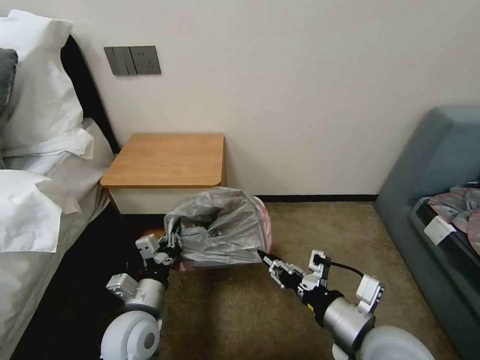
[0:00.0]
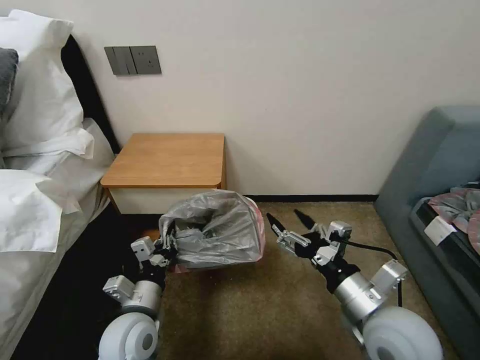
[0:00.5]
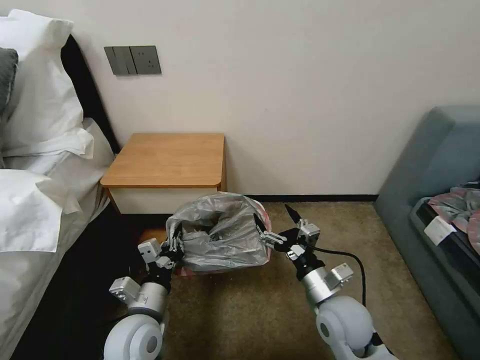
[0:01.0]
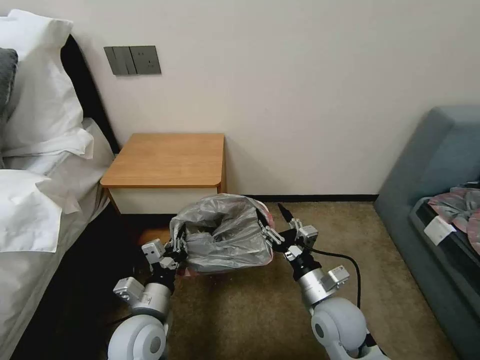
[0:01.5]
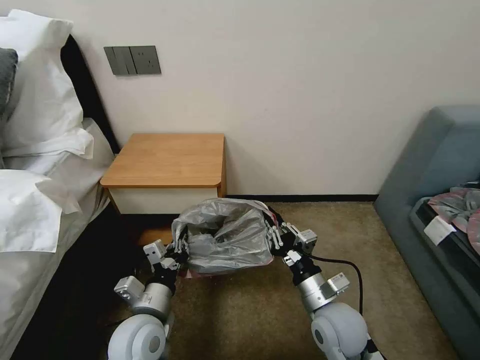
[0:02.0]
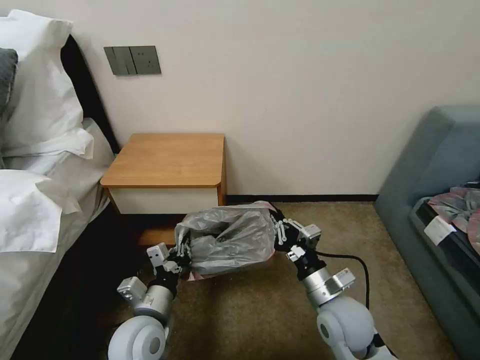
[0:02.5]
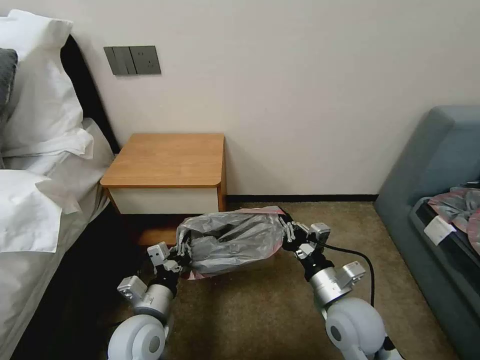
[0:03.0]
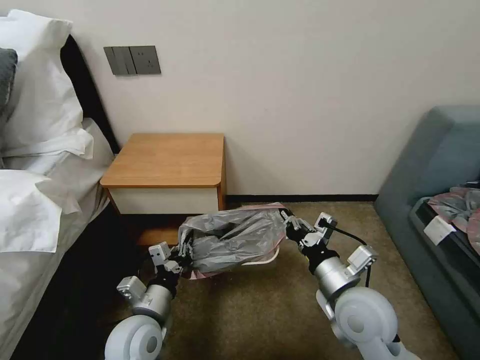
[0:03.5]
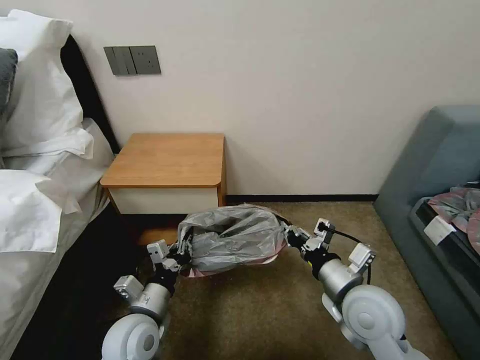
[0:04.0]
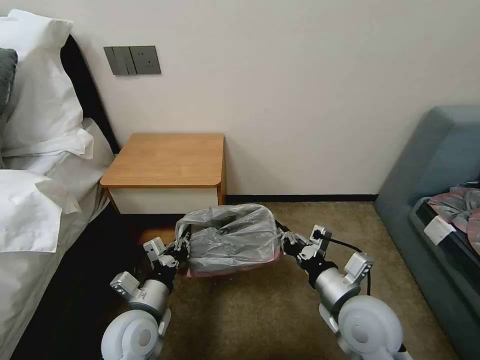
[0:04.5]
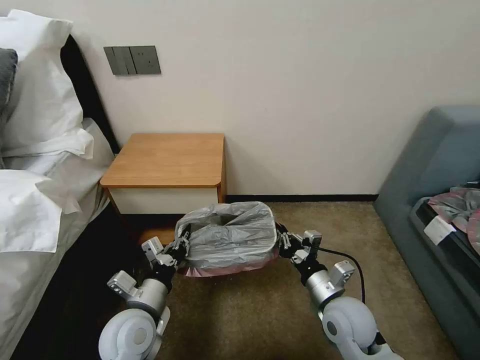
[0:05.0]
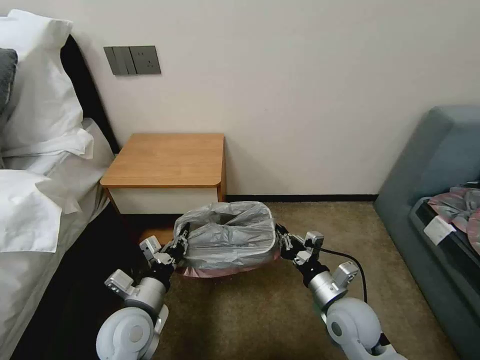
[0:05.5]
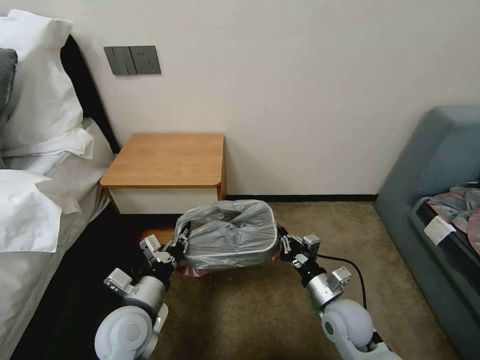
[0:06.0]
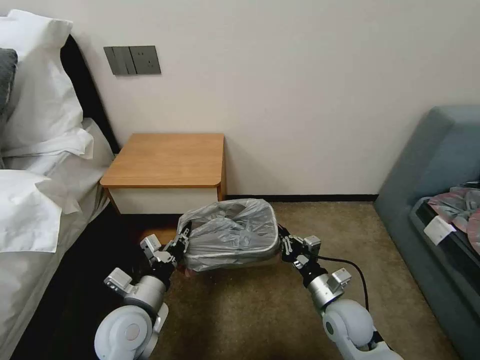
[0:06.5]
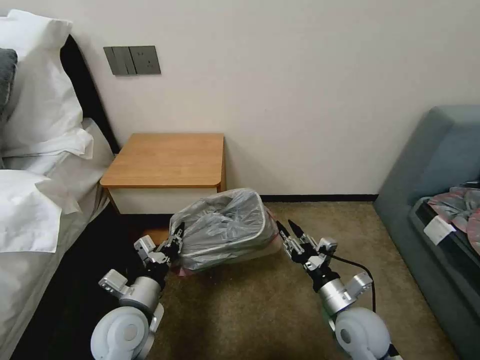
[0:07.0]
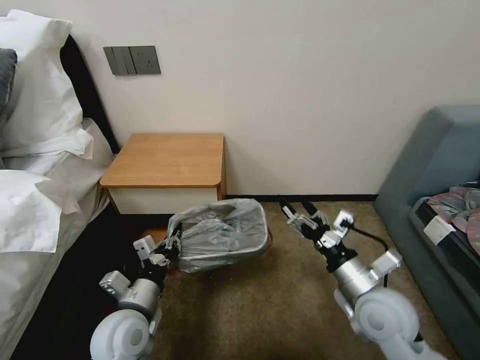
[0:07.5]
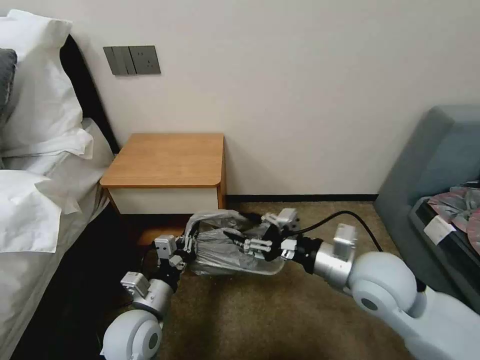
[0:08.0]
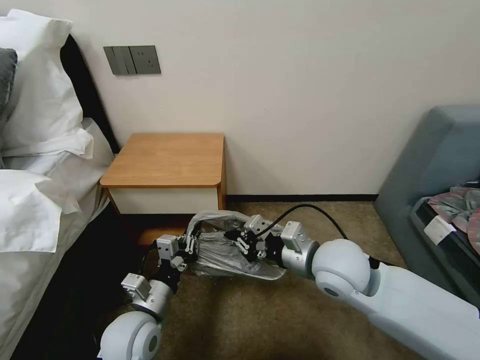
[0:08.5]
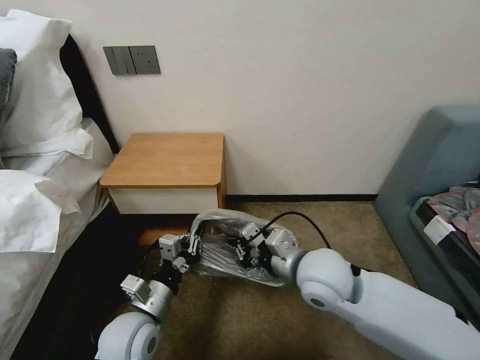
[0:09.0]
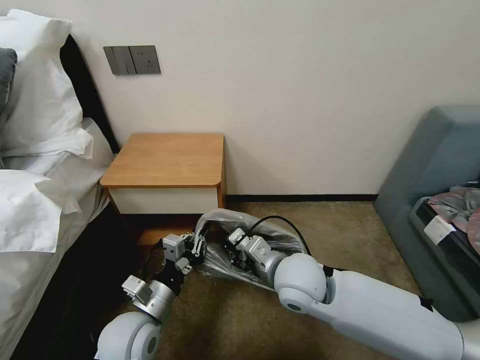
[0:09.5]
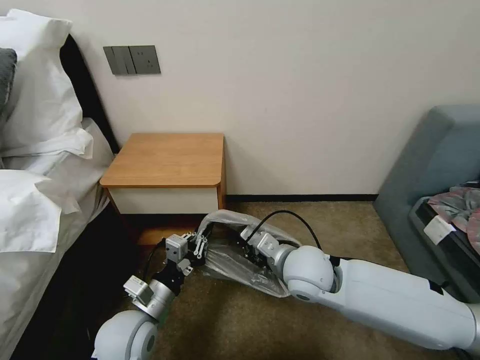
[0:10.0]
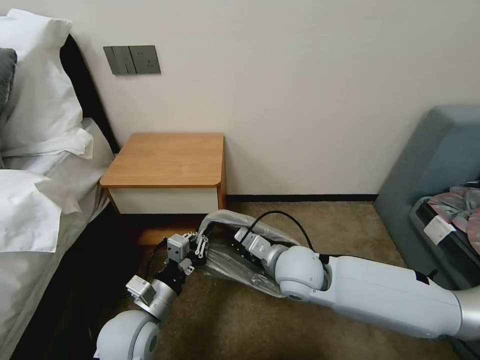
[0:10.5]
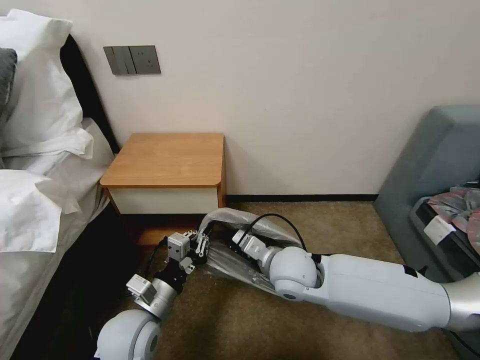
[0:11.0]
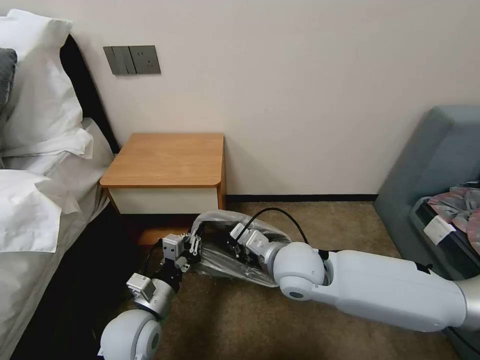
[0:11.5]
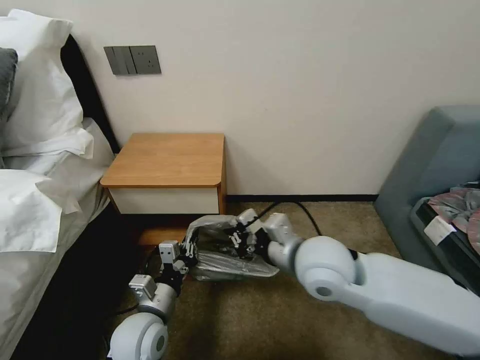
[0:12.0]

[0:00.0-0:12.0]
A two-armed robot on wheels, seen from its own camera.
Task of the whole recording: Pick up the garbage bag from the table and place it over the trash can.
0:00.0 to 0:02.0: The right gripper is displaced downward and forward by roughly 15 cm, and opens, then closes again.
0:02.0 to 0:04.0: The right gripper heads upward, covering about 5 cm.
0:04.0 to 0:06.0: The right gripper is displaced downward by about 10 cm.
0:06.0 to 0:08.0: The right gripper goes approximately 20 cm upward, and opens its fingers.
0:08.0 to 0:10.0: The right gripper heads to the left and downward, covering approximately 10 cm, and closes its fingers.
0:10.0 to 0:12.0: The right gripper goes some 5 cm upward.

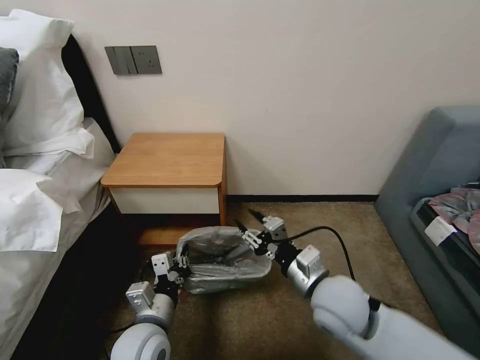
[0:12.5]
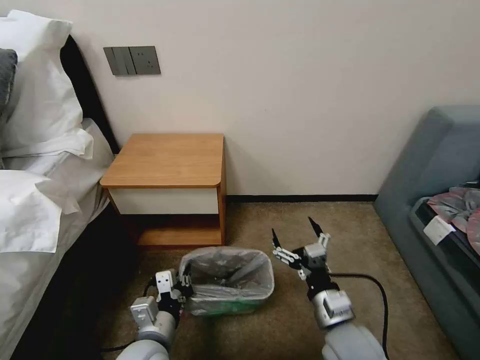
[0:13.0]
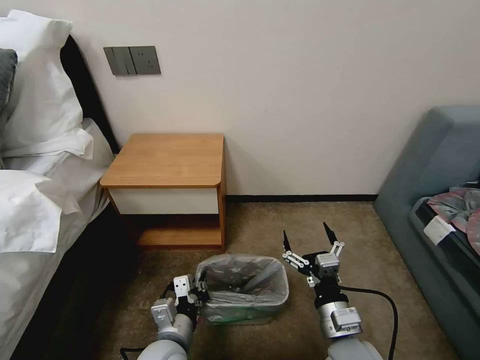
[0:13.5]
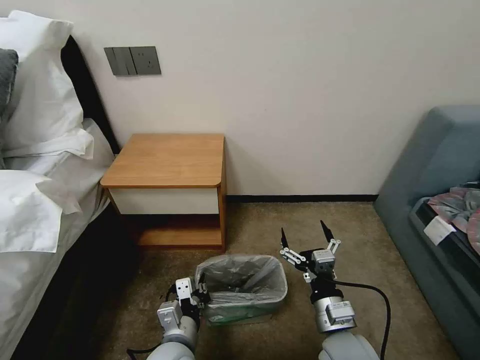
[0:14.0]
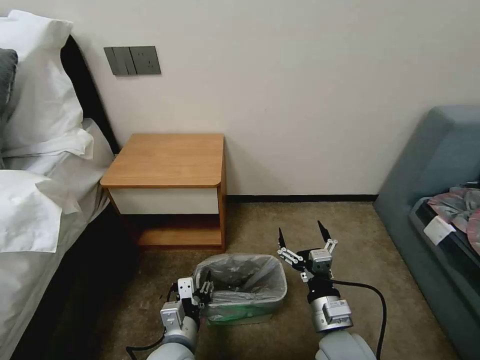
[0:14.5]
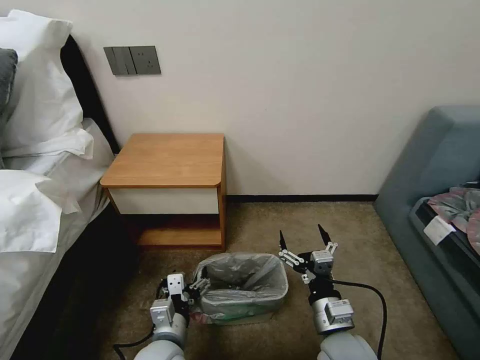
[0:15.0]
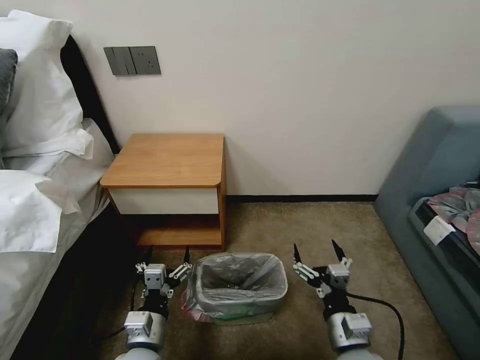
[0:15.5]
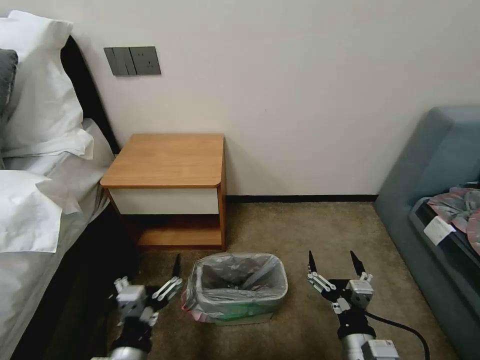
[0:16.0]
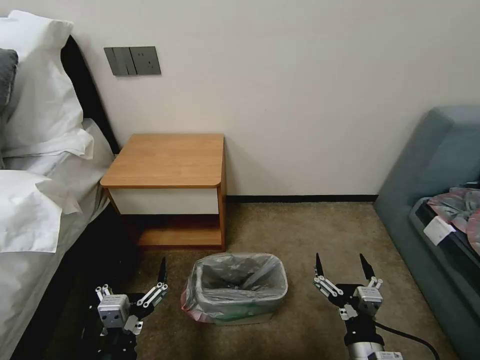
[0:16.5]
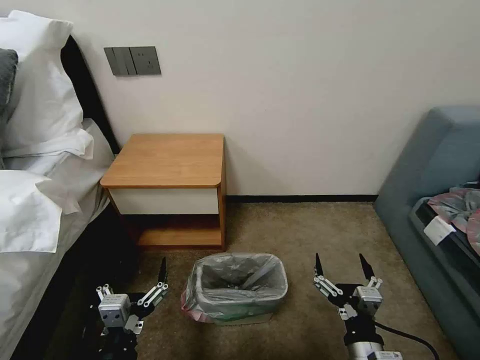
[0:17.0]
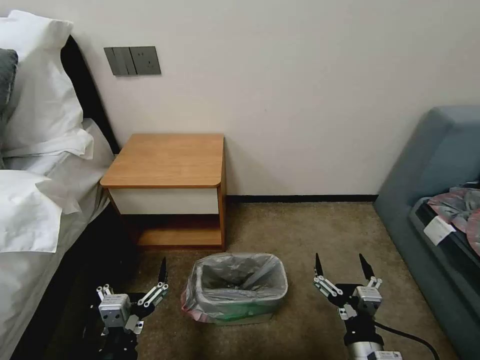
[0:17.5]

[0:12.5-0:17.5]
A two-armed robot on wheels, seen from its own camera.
Task of the whole recording: Pick up the garbage bag from the table and place it over the trash can.
0:12.5 to 0:15.0: The left gripper moves approximately 5 cm, and opens, while the right gripper heads downward and backward, covering approximately 10 cm, and opens its fingers.
0:15.0 to 0:17.5: The right gripper is displaced backward by approximately 10 cm, while the left gripper is displaced backward, upward and to the left by roughly 15 cm.

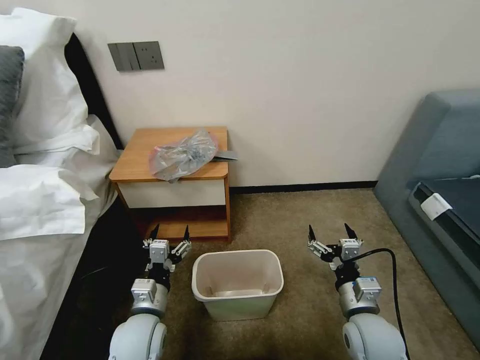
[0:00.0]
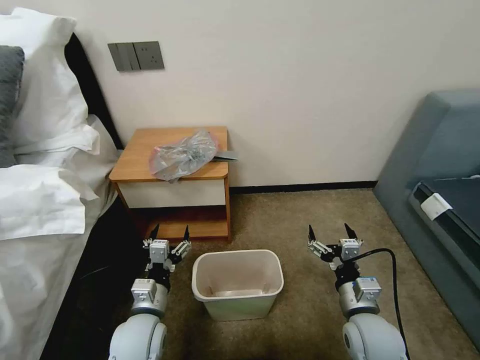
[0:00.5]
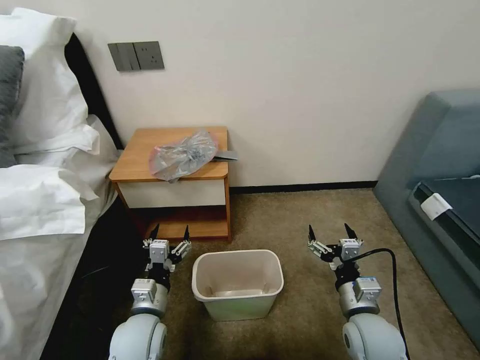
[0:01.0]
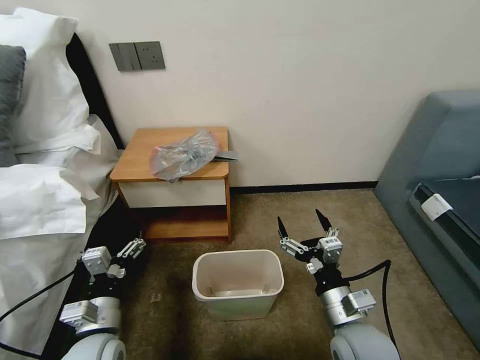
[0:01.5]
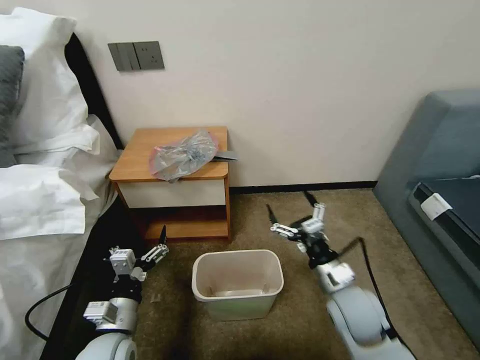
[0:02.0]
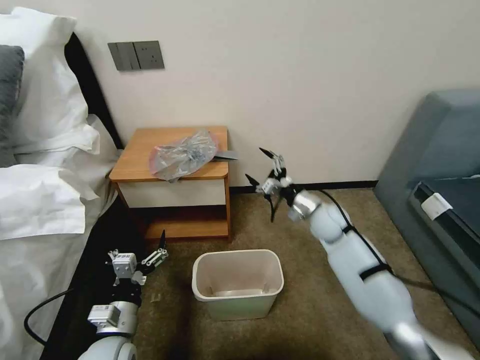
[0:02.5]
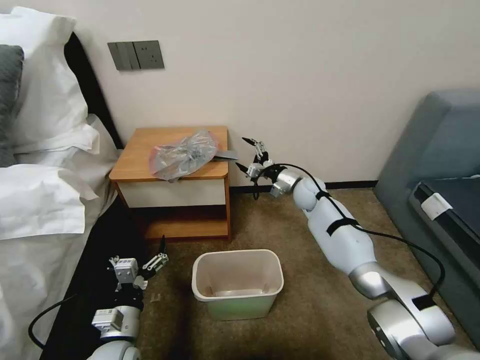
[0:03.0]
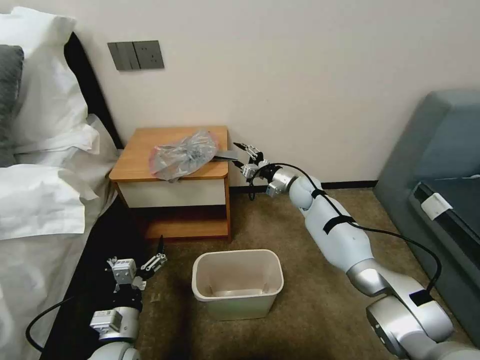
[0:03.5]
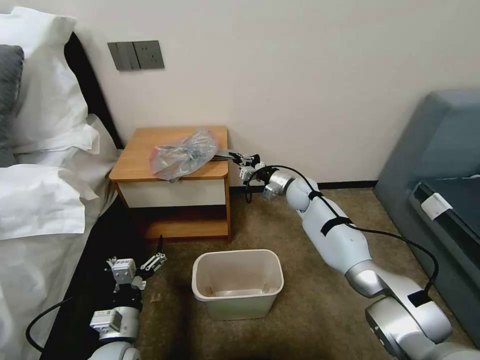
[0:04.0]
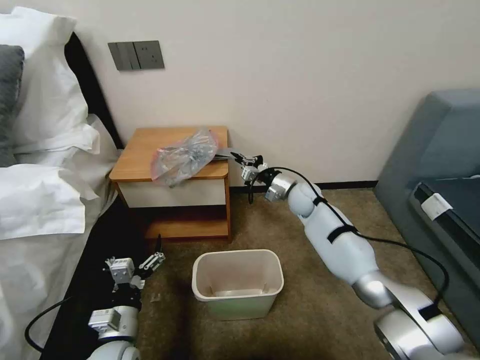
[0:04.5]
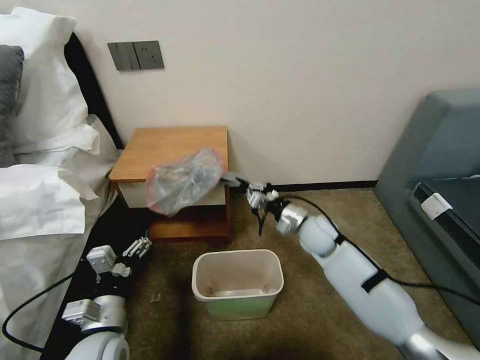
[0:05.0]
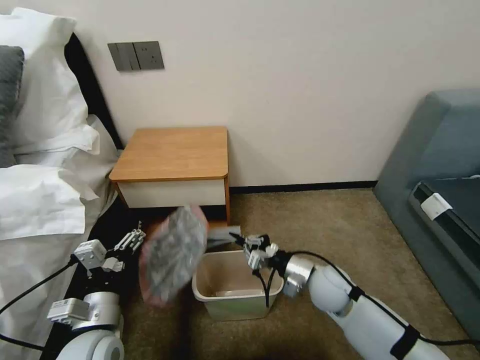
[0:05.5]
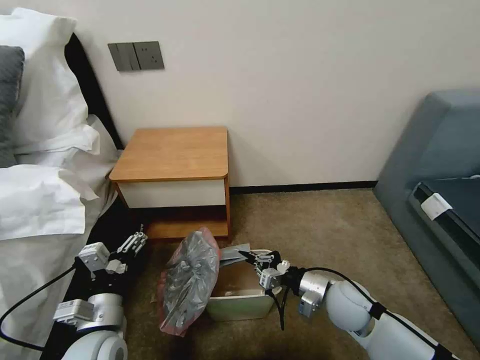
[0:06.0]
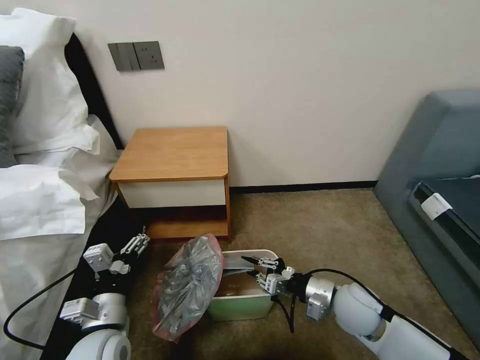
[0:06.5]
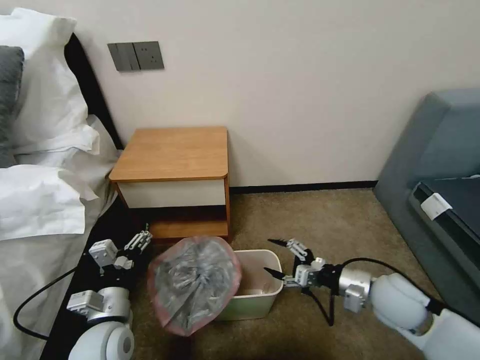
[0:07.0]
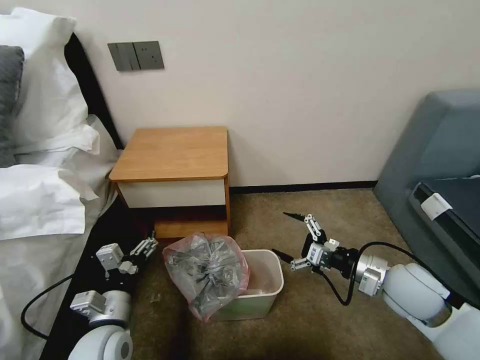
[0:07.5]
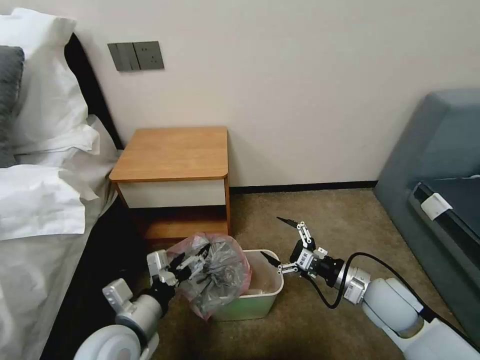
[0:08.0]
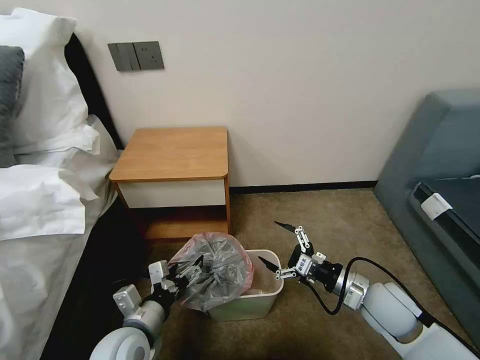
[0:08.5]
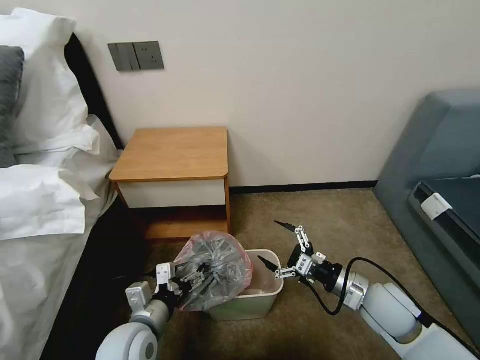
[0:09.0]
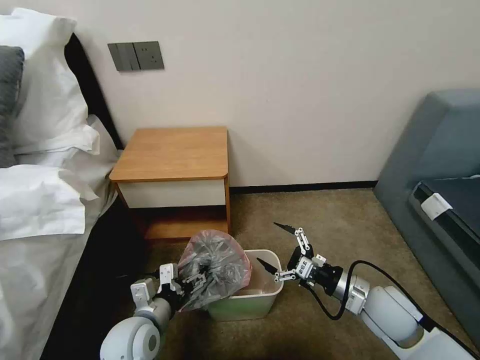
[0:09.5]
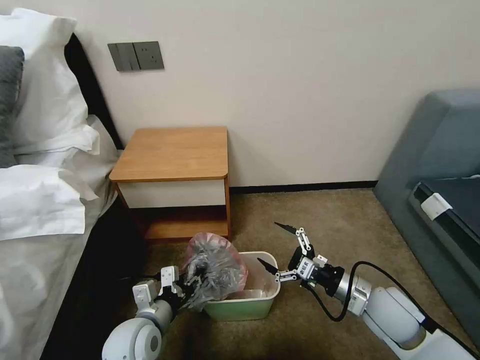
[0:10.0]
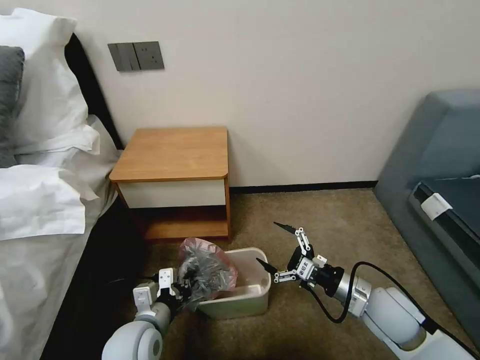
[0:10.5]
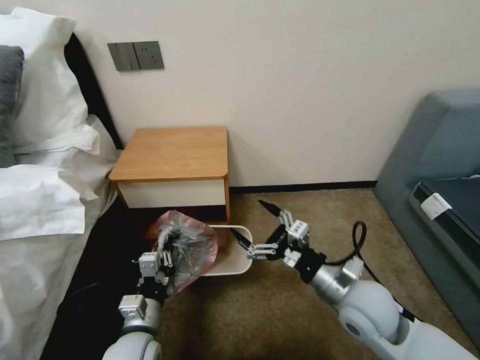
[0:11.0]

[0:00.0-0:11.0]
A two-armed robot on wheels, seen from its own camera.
Task of the whole recording: Pick up the garbage bag from the table and place it over the trash can.
0:02.0 to 0:03.5: The right gripper is displaced forward by some 30 cm, and closes its fingers.
0:03.5 to 0:05.5: The left gripper goes about 5 cm upward, while the right gripper is displaced backward by roughly 25 cm, and closes.
0:05.5 to 0:07.5: The right gripper shifts approximately 15 cm to the right and upward, and opens.
0:07.5 to 0:09.0: The right gripper moves downward, some 5 cm.
0:09.0 to 0:11.0: The left gripper closes; the right gripper shifts approximately 10 cm to the left and upward.
